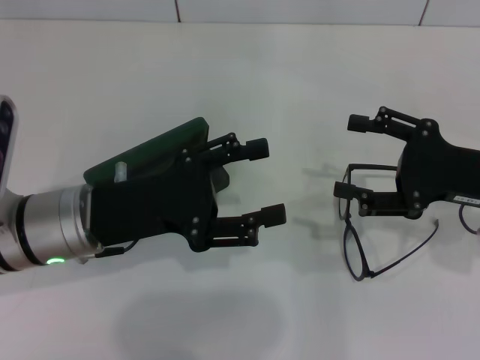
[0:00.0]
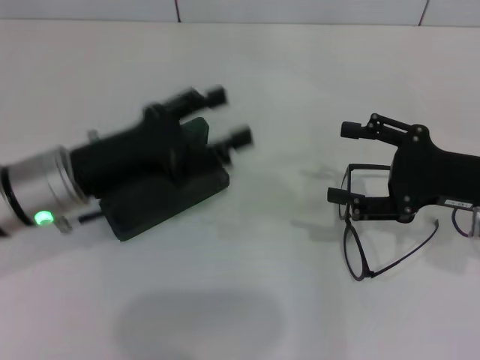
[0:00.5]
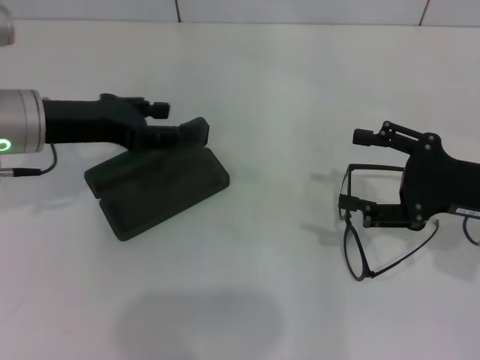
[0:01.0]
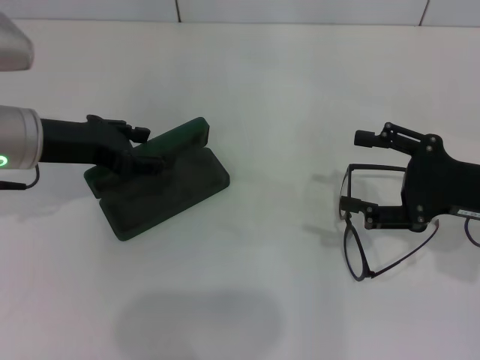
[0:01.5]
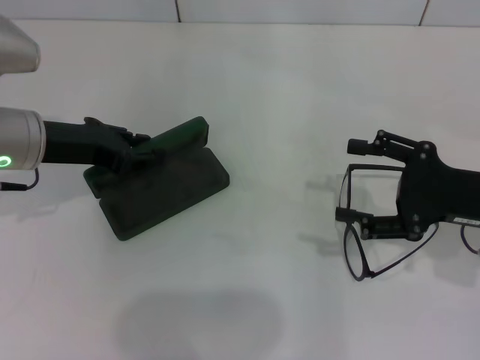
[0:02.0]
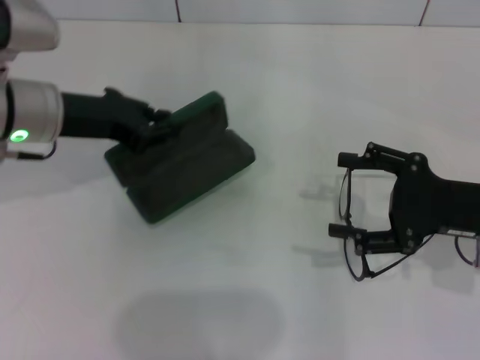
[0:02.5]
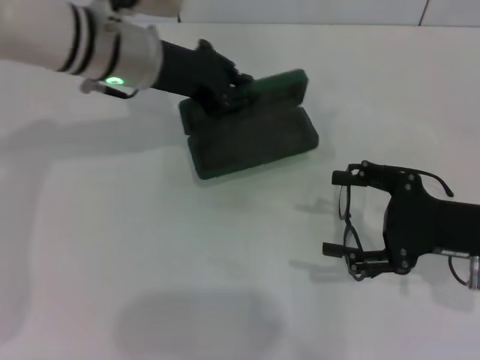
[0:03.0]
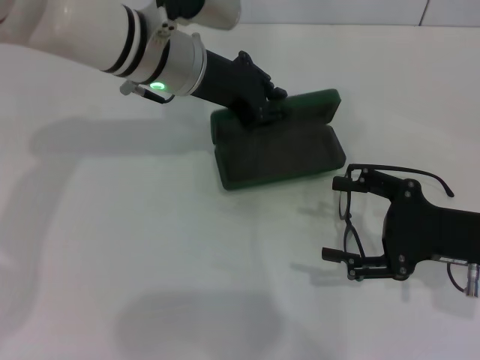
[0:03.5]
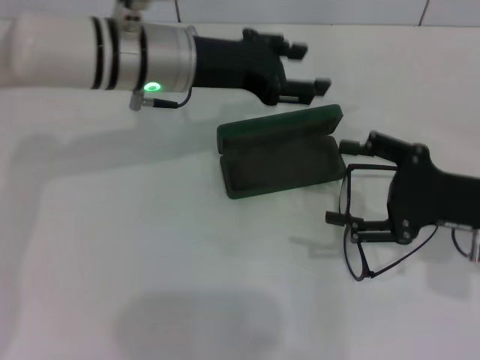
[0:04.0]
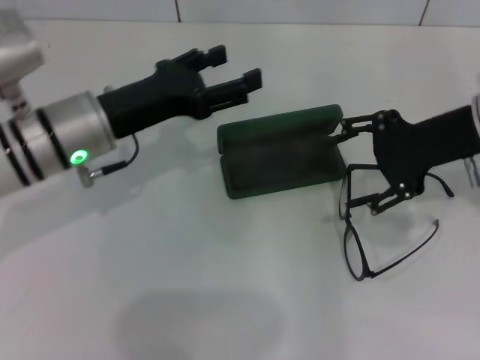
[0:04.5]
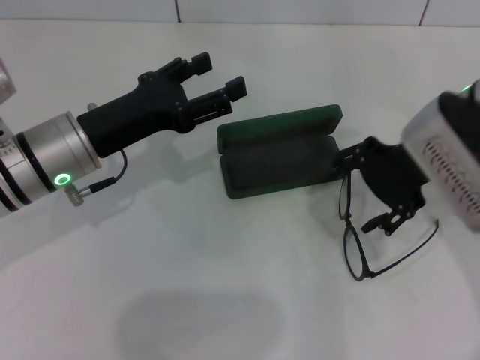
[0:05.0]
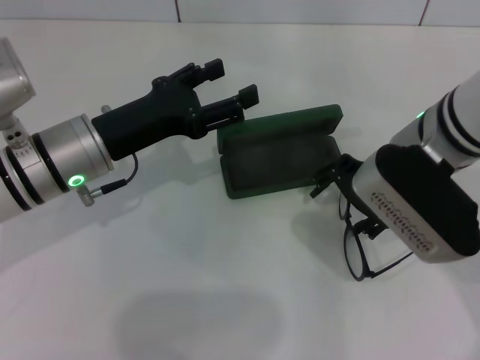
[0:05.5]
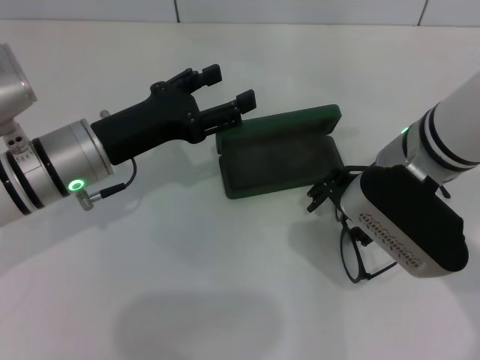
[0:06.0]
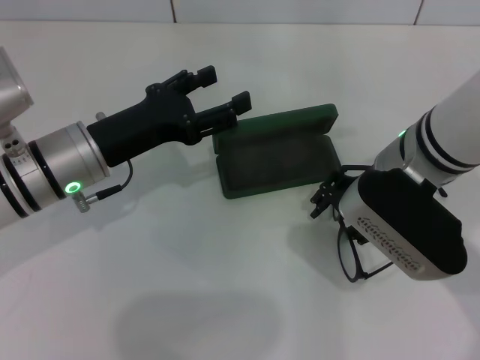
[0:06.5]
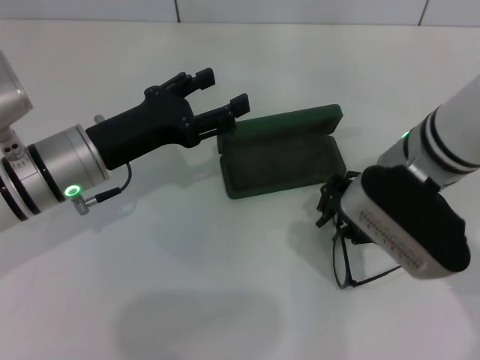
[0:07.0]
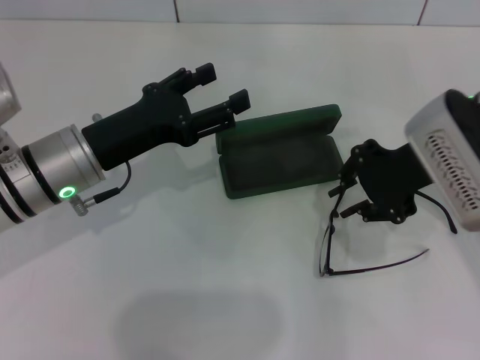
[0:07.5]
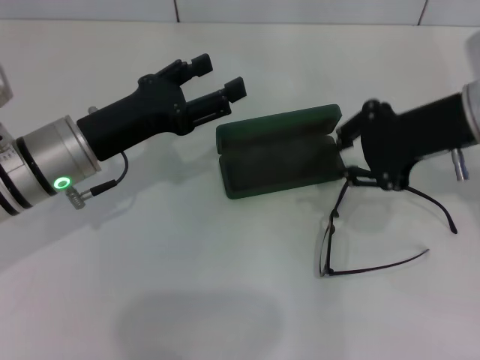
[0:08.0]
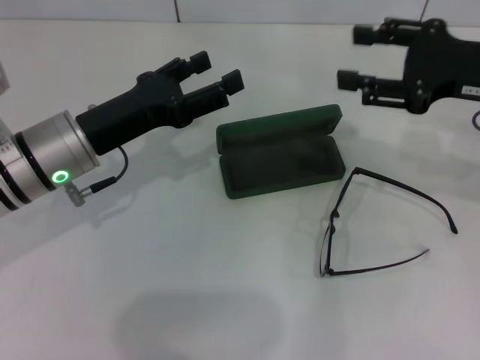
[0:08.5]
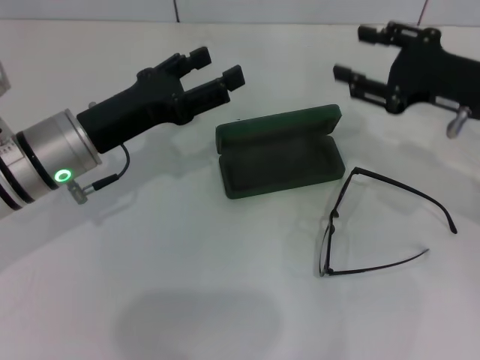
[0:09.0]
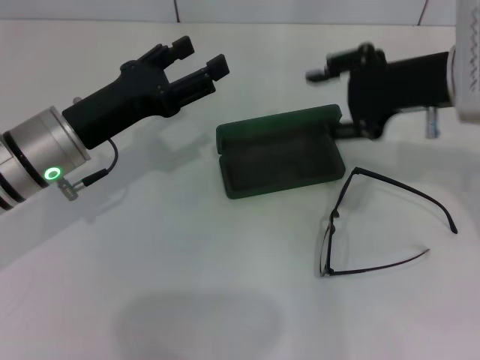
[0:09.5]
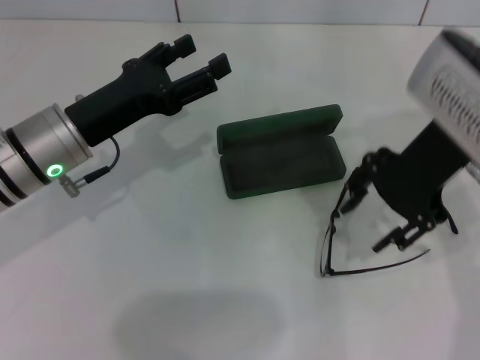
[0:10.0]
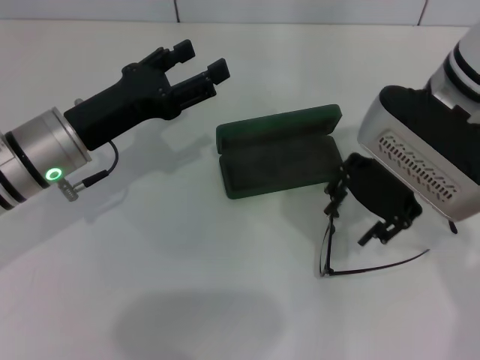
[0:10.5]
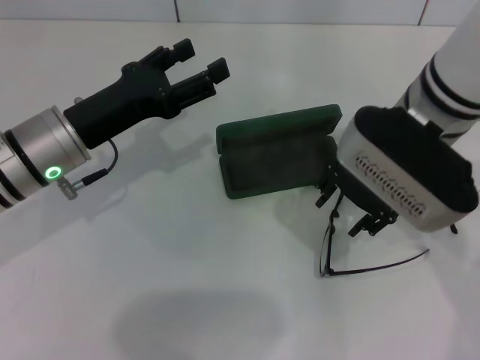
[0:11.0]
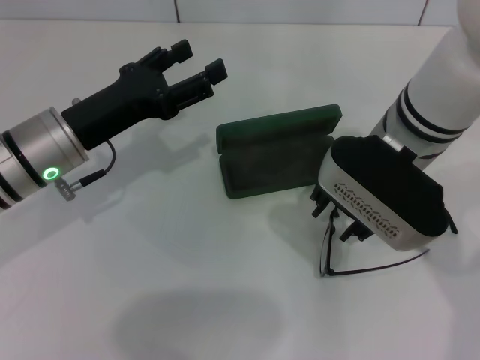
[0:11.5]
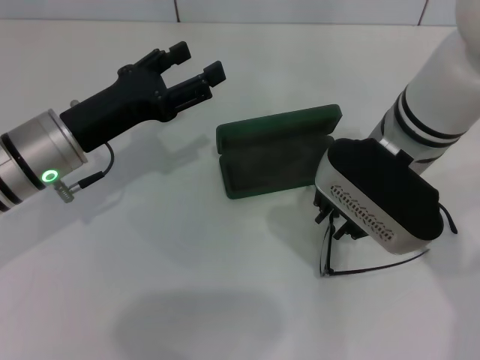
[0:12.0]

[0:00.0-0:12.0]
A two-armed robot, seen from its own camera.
Step, 0:00.0 to 0:02.0: Grab the glasses case with your left hand.
Step, 0:02.5 to 0:03.5: Place the glasses case in the center of the table with your left hand.
0:00.0 to 0:02.0: The left gripper heads forward and to the left, covering approximately 10 cm.
0:02.0 to 0:04.0: The left gripper heads to the right and forward, covering roughly 15 cm, and closes, then reopens.
0:04.0 to 0:06.0: The right gripper is displaced to the left and upward by some 15 cm. The left gripper moves to the left, backward and downward, roughly 15 cm, and opens its fingers.
0:06.0 to 0:08.0: The right gripper shifts some 10 cm to the right, and closes.
0:10.0 to 0:12.0: The right gripper shifts about 10 cm to the left and downward.

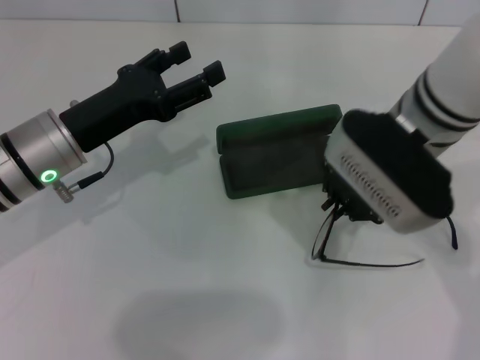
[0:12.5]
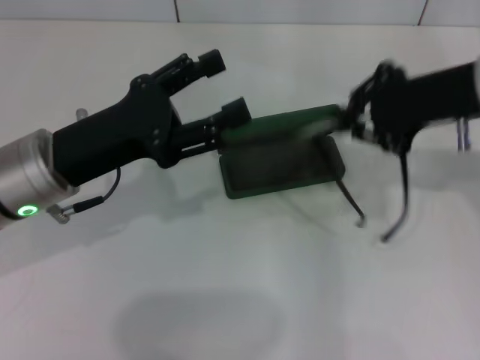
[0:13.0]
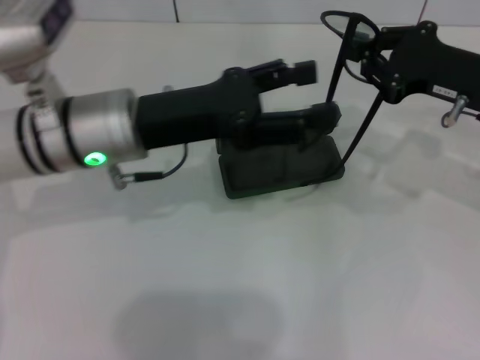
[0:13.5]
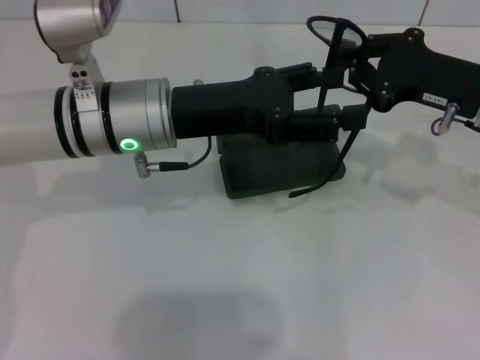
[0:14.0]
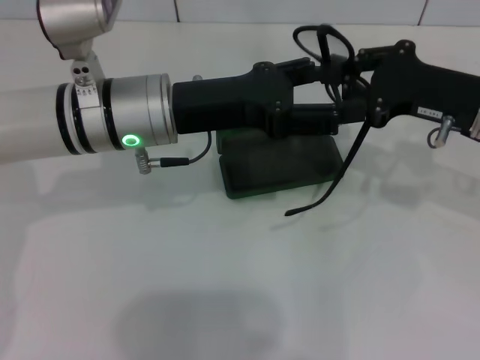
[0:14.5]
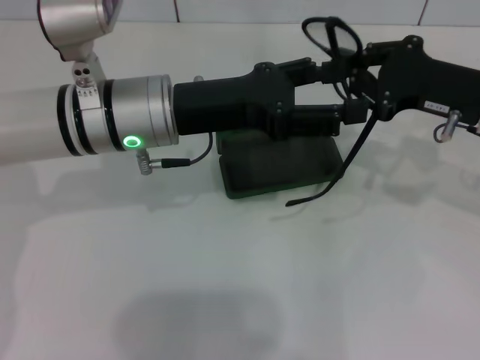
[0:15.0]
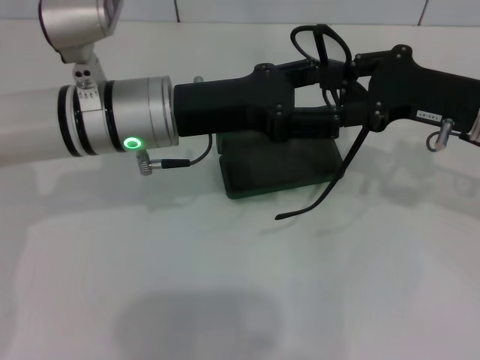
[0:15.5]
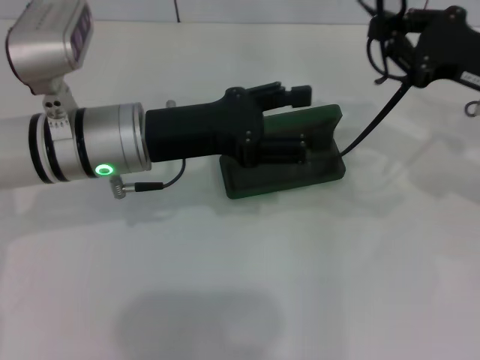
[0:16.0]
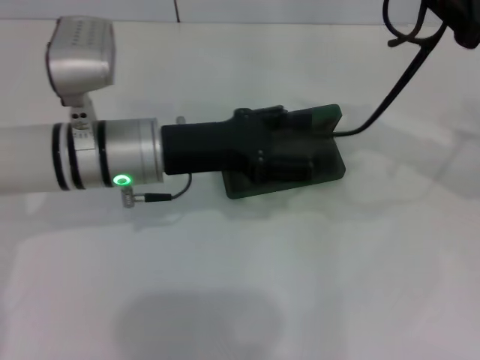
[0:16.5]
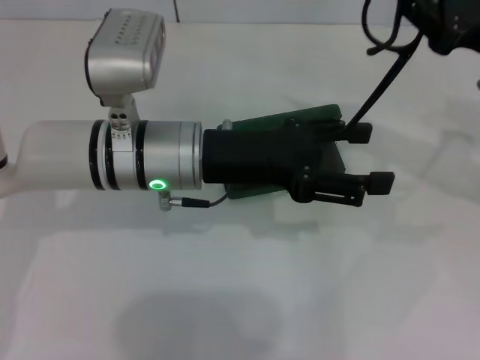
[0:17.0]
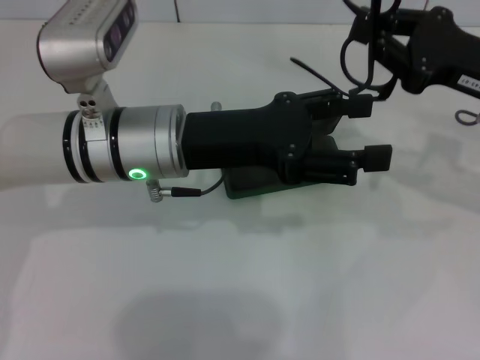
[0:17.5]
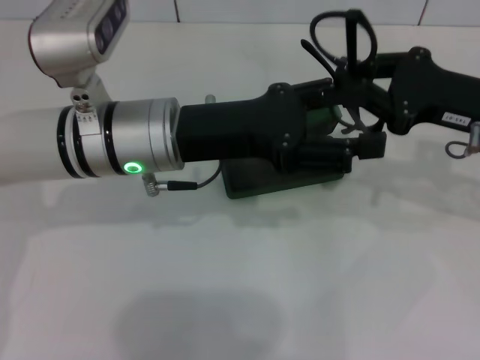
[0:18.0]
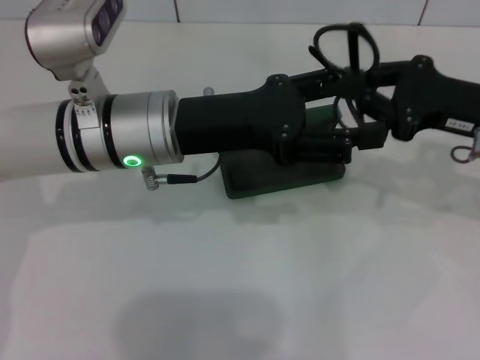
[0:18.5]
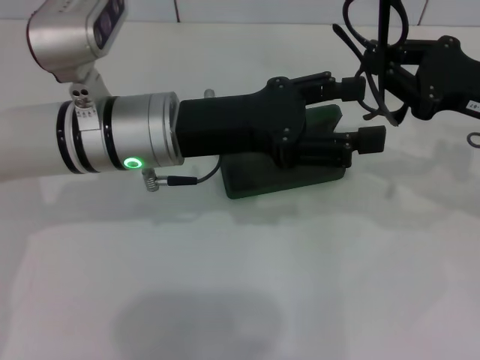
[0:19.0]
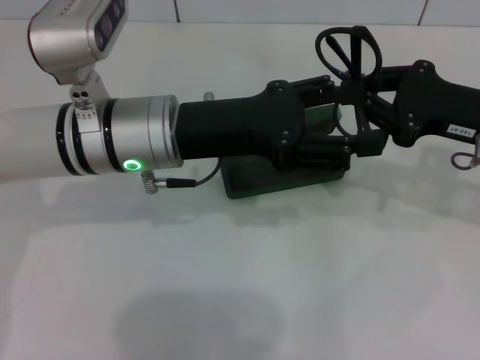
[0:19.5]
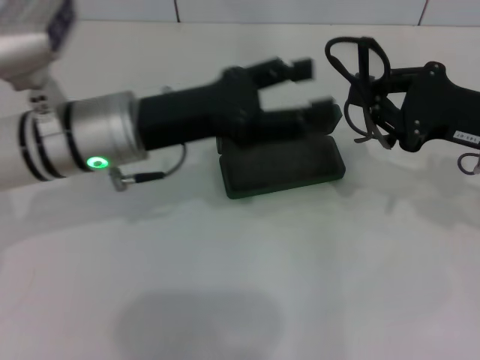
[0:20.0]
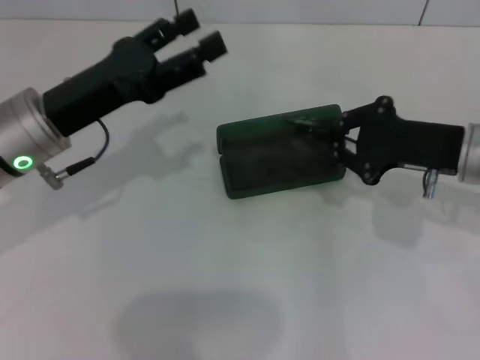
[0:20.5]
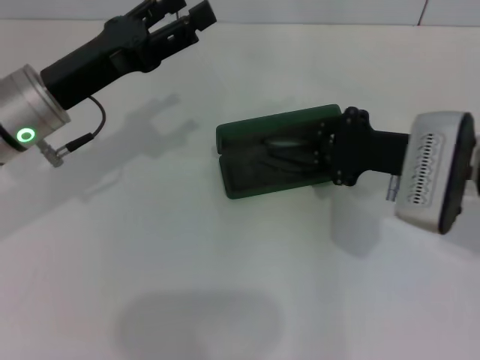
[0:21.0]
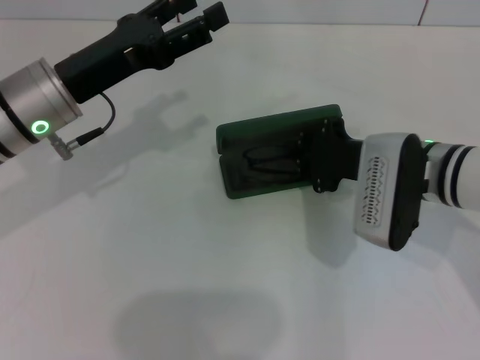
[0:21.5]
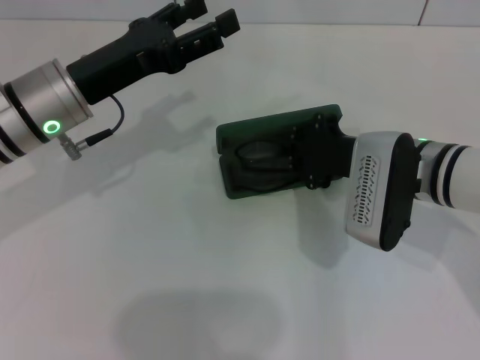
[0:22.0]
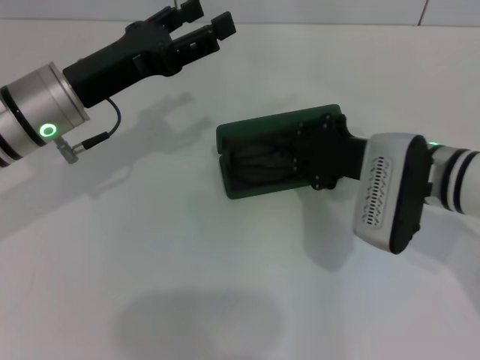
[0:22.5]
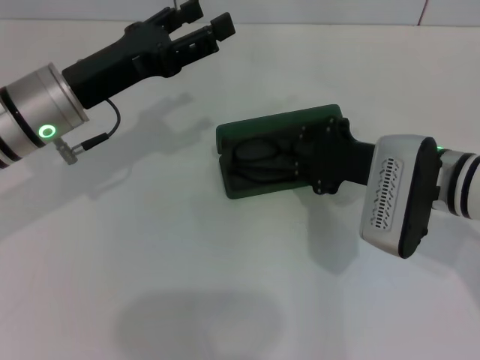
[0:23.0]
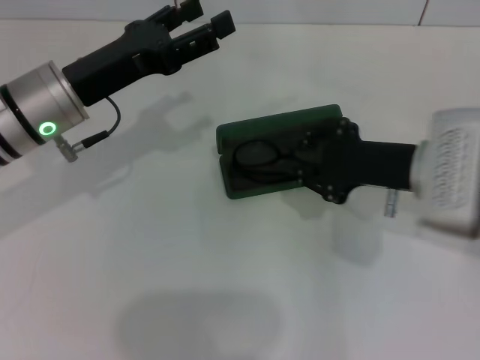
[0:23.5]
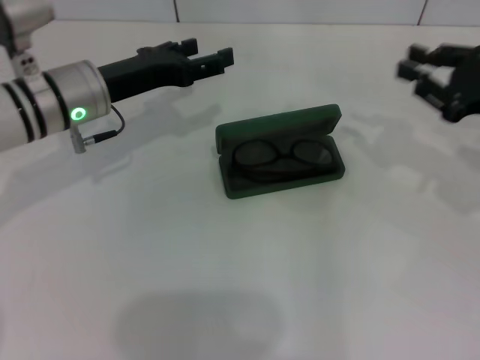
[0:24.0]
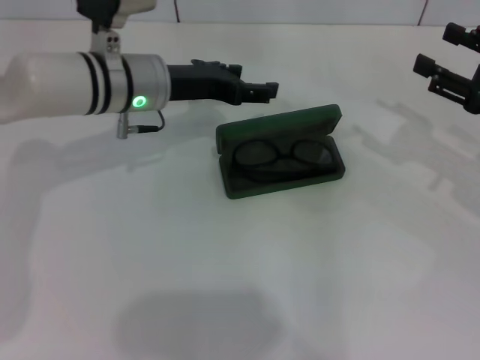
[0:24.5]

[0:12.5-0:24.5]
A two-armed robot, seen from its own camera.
Step, 0:12.5 to 0:18.0: Fold the frame with your left hand.
Step, 0:18.5 to 0:23.5: Put the glasses into the case with your right hand.
0:12.5 to 0:14.5: The grippers both shift to the right by some 10 cm.
0:14.5 to 0:16.5: The right gripper shifts by roughly 5 cm.
0:16.5 to 0:18.5: The right gripper changes place by about 5 cm.
0:18.5 to 0:20.5: The left gripper goes about 10 cm to the left.
0:20.5 to 0:22.5: The right gripper travels to the left by roughly 5 cm.
0:22.5 to 0:24.5: The left gripper shifts some 10 cm forward and to the right; the right gripper travels to the right by some 15 cm.

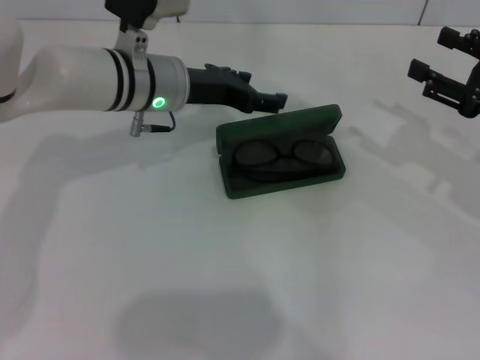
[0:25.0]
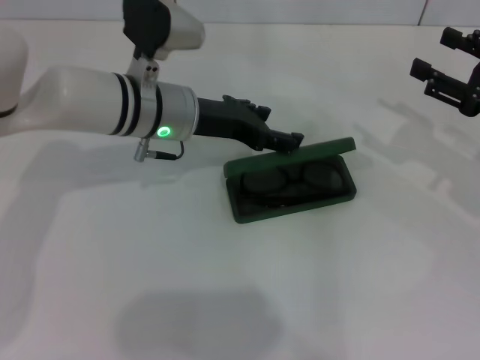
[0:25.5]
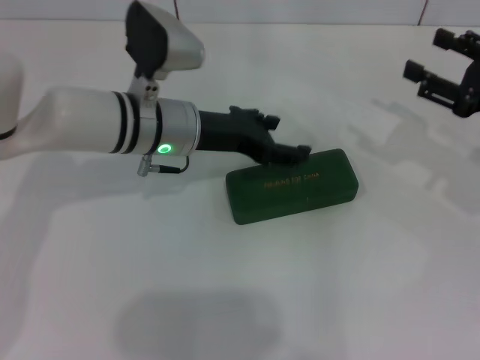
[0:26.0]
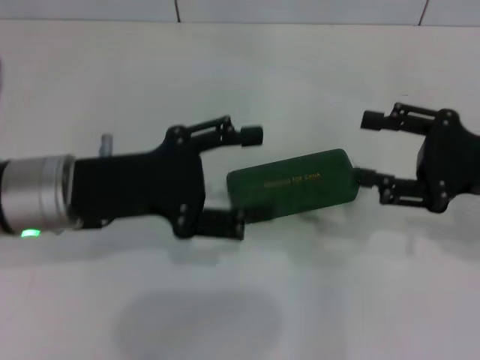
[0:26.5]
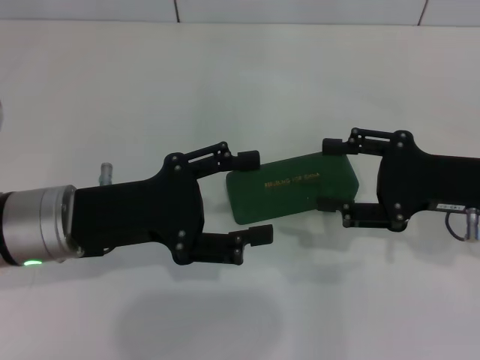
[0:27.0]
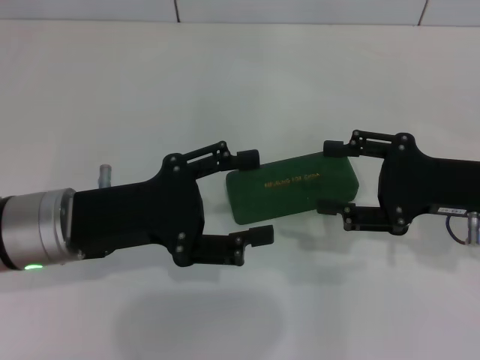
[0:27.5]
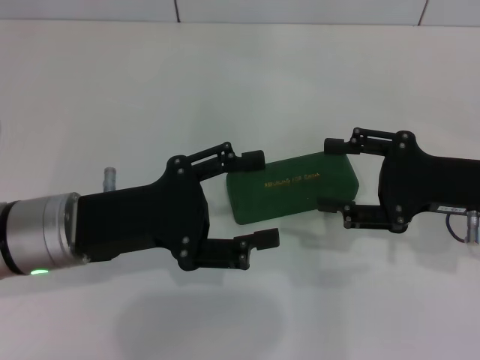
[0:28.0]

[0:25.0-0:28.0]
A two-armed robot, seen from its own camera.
0:25.0 to 0:26.5: The right gripper shifts by roughly 5 cm. Meanwhile the left gripper travels backward and to the left by approximately 15 cm.
